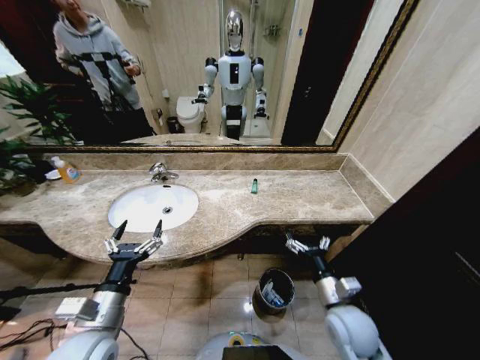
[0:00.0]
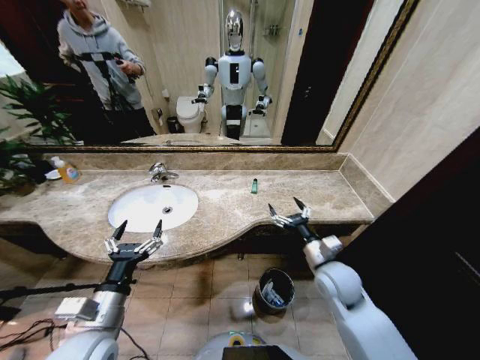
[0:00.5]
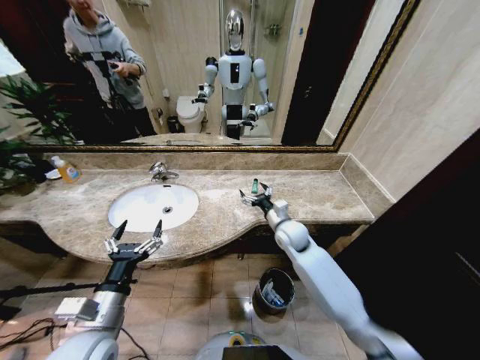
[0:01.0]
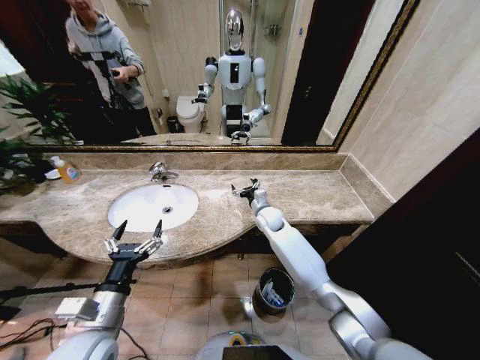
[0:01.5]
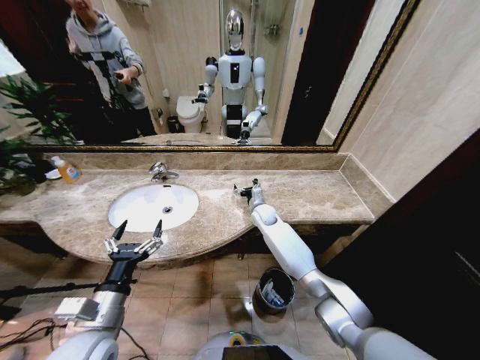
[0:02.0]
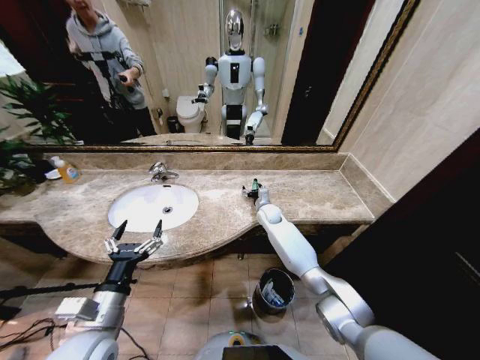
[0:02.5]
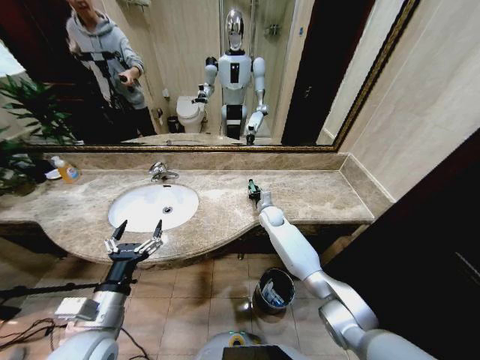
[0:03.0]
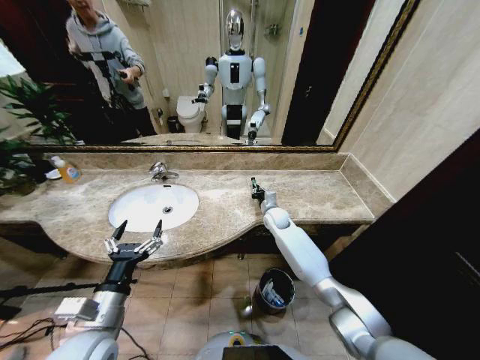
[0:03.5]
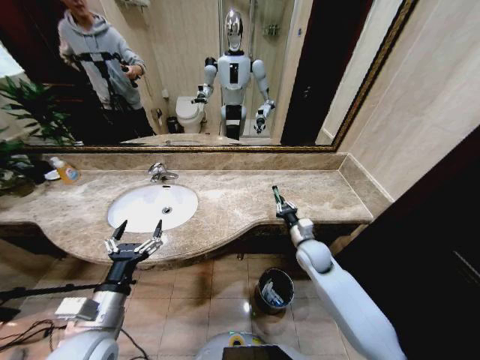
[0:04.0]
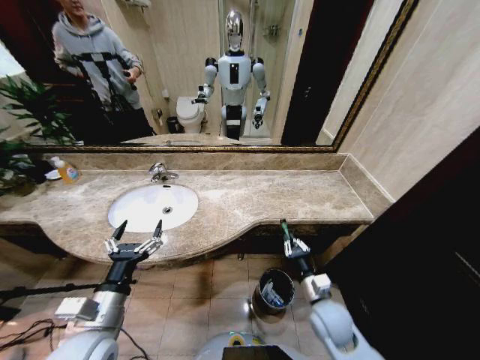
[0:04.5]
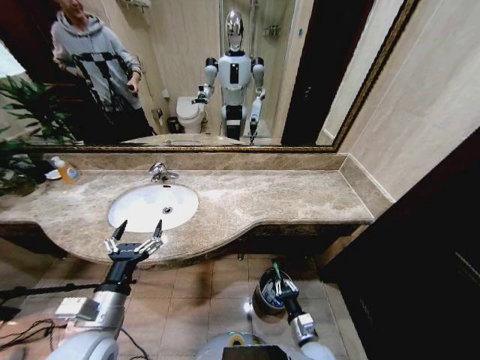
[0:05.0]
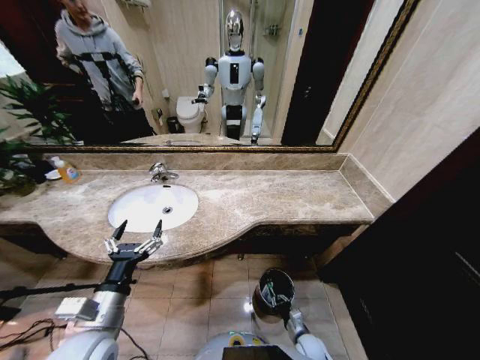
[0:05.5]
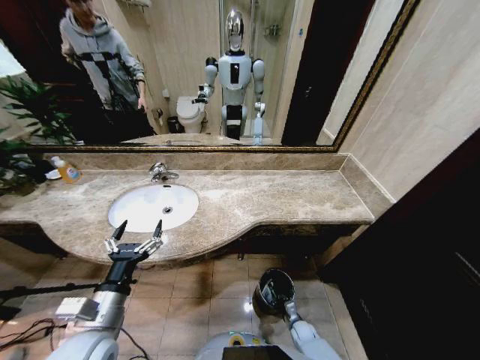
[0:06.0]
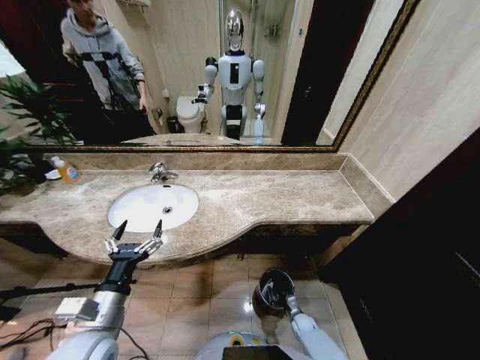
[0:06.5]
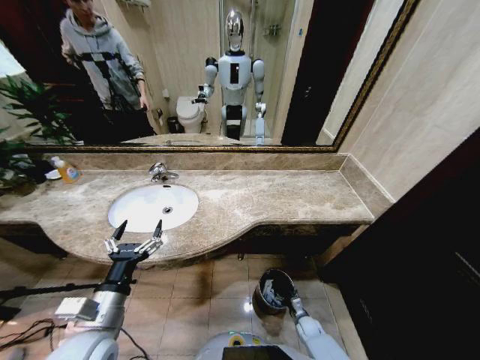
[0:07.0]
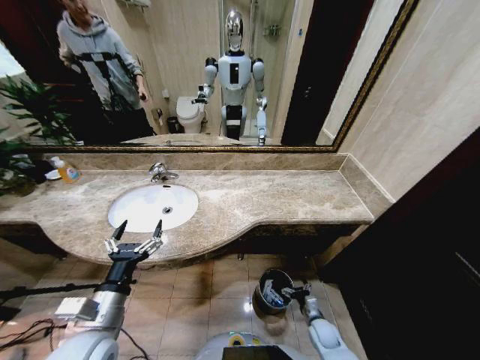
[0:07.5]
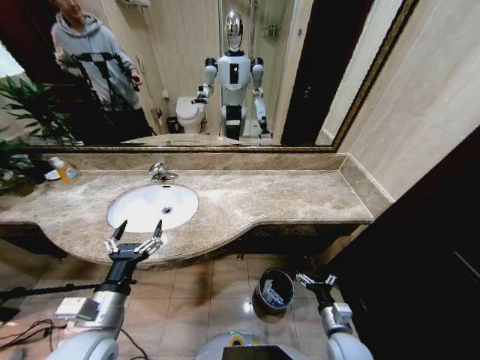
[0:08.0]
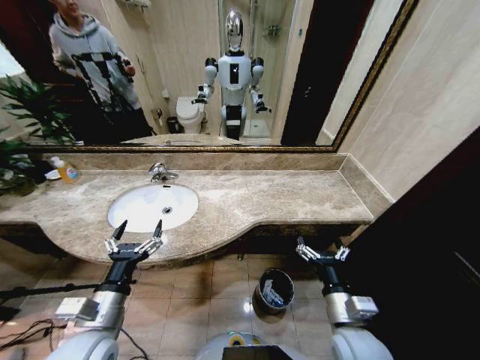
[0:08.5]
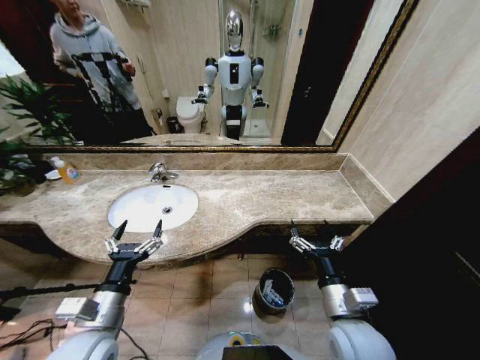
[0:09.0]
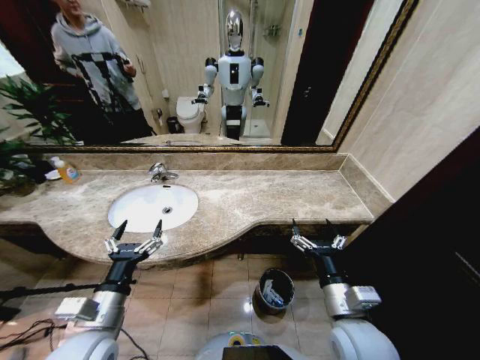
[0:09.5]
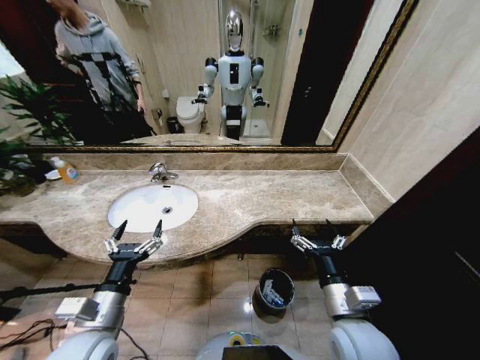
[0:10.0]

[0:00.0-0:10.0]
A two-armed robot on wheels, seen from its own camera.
Task of the whole recording: Pick up the trash from the sink and place it in the trash bin.
0:00.0 to 0:02.0: The right gripper goes some 35 cm forward.
0:02.0 to 0:04.0: The right gripper heads backward and to the right, covering about 20 cm, and closes.
0:04.0 to 0:06.0: The right gripper is displaced downward and backward by roughly 40 cm.
0:06.0 to 0:08.0: The right gripper travels upward by some 25 cm, and opens.
0:08.0 to 0:10.0: The right gripper heads upward, covering about 15 cm.

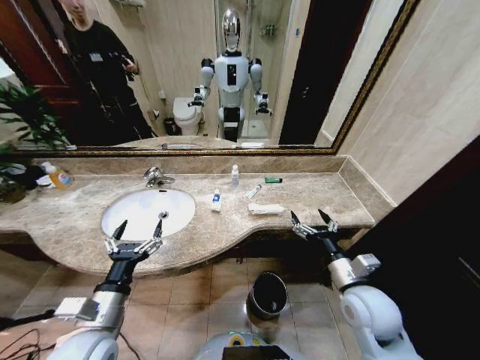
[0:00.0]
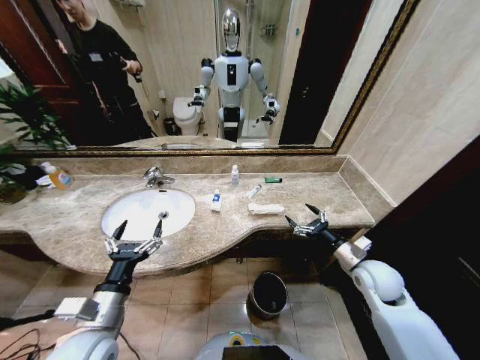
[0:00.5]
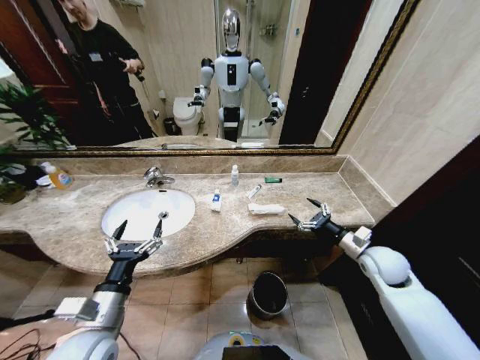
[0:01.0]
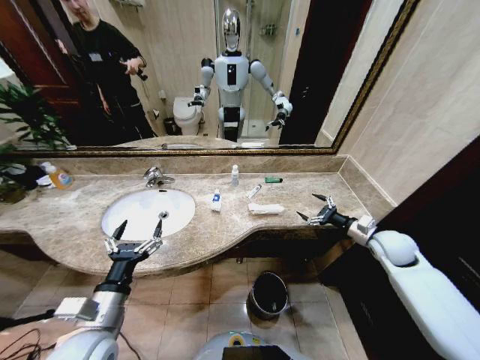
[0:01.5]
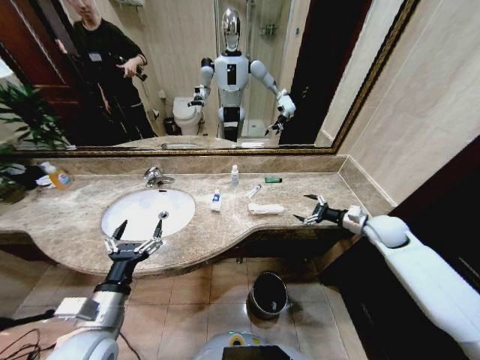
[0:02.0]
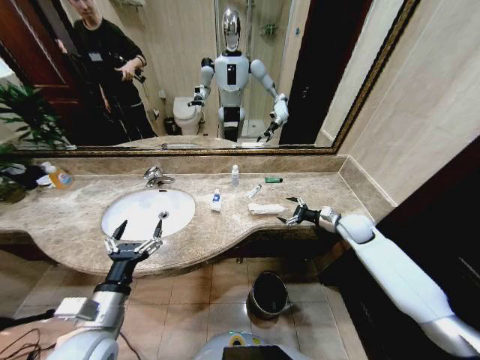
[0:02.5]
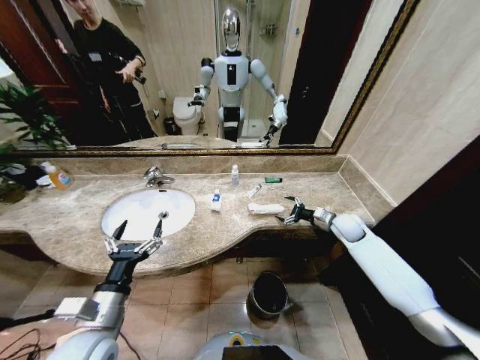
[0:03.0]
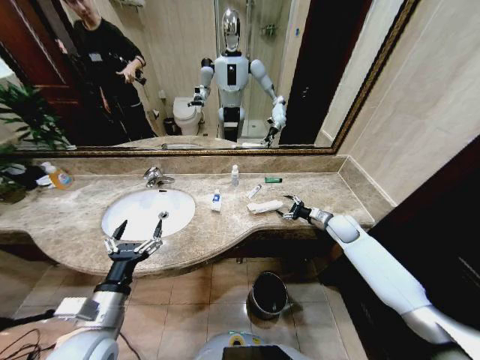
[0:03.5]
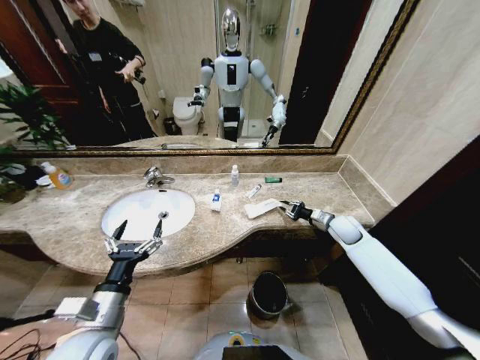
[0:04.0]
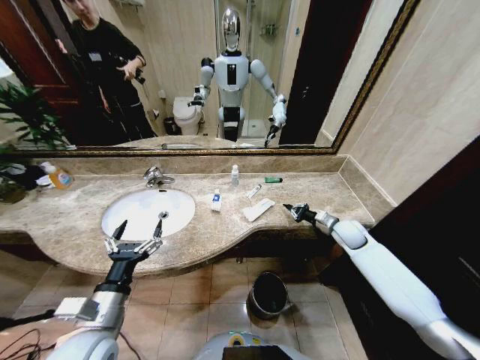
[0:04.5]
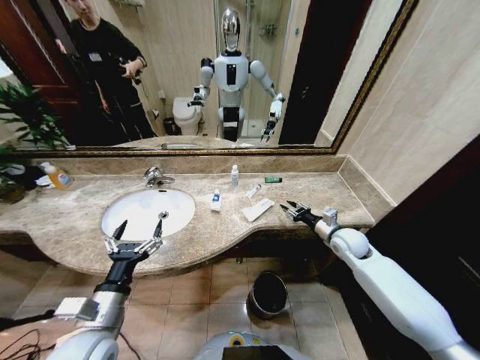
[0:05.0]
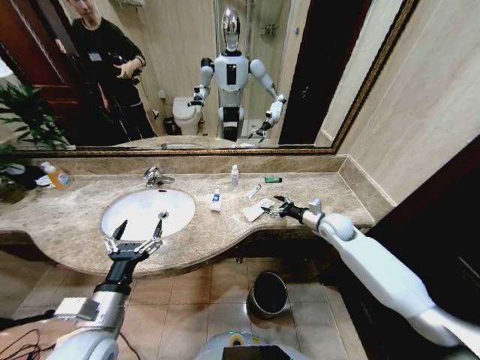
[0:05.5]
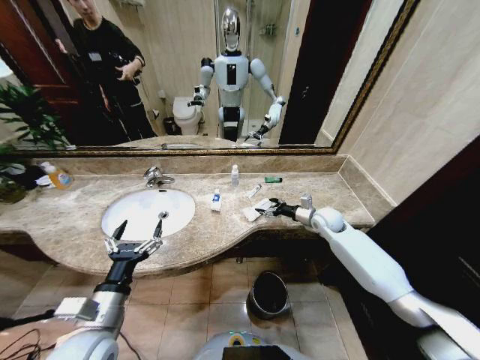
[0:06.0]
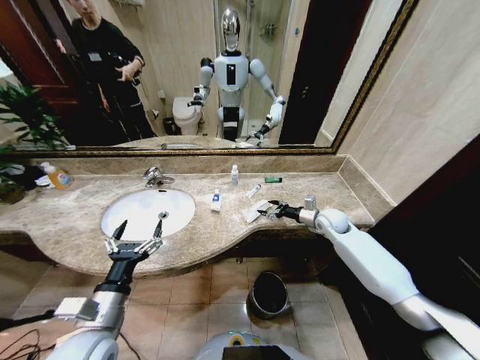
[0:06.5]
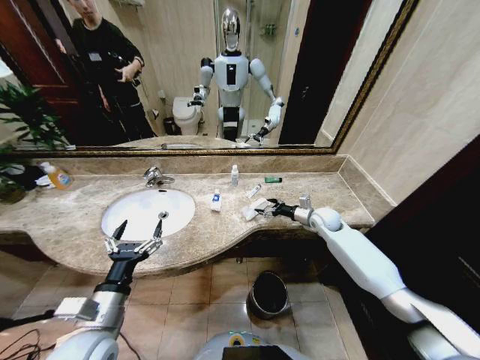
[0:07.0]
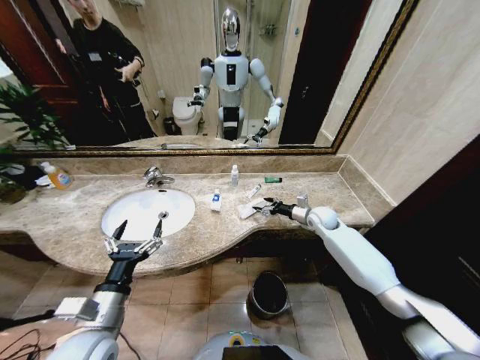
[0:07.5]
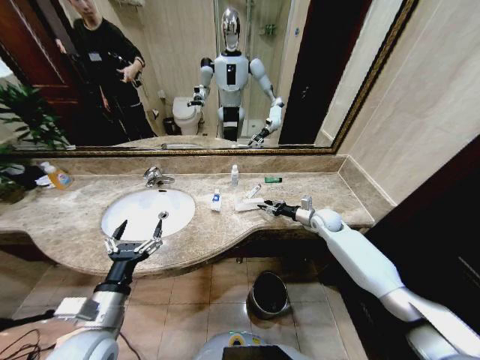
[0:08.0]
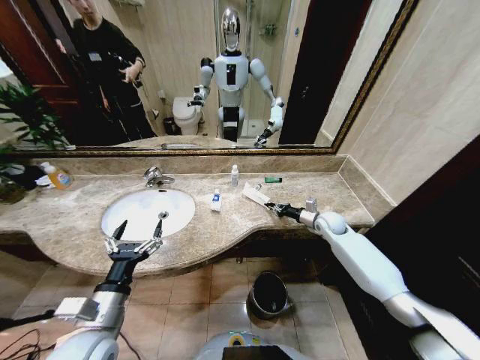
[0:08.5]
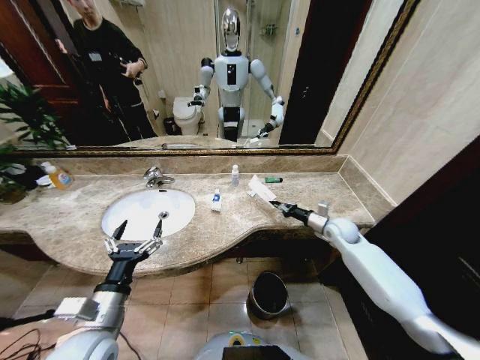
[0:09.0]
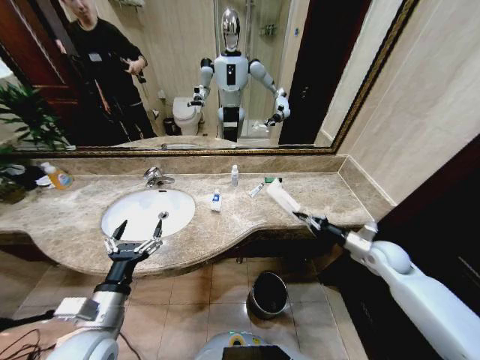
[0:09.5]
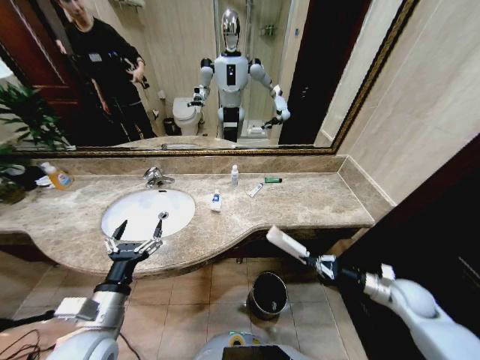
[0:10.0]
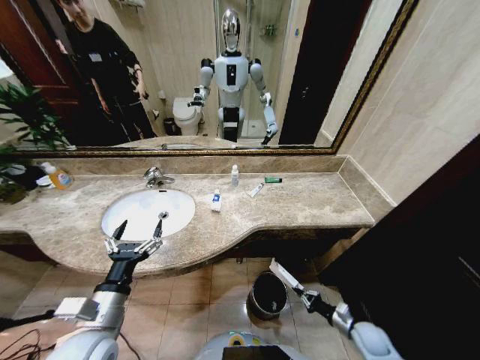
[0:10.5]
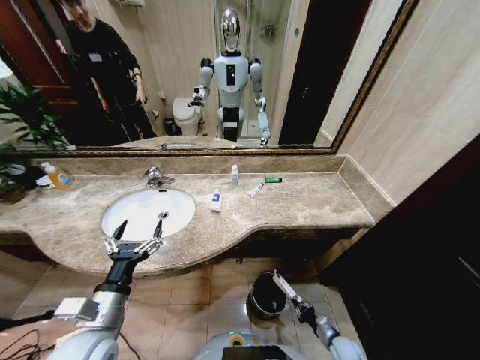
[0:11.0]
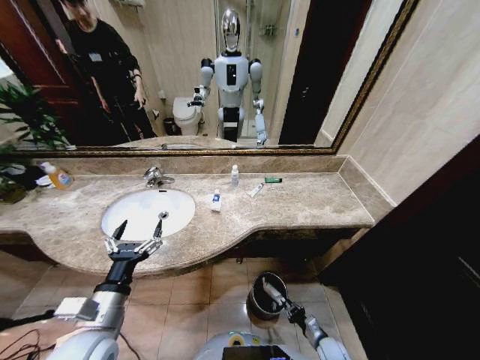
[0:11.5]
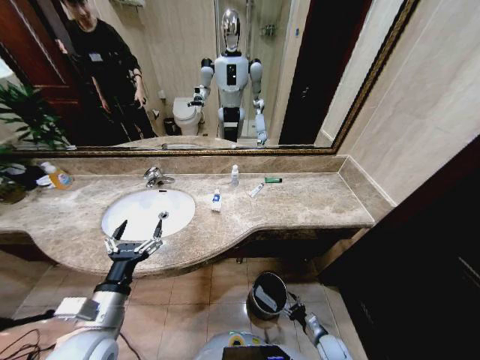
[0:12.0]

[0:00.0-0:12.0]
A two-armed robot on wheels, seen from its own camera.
Task of the whole recording: Pick up the trash from the sink and place it in the trash bin.
0:02.0 to 0:04.0: The right gripper shifts some 10 cm to the left and downward, and closes.
0:04.0 to 0:06.0: The right gripper moves to the left, about 5 cm, goes backward and returns, some 5 cm each way, and opens up.
0:06.0 to 0:08.0: The right gripper closes up.
0:08.0 to 0:10.0: The right gripper is displaced backward and to the right by some 30 cm, and closes.
0:10.0 to 0:12.0: The right gripper travels downward and to the left by approximately 30 cm, and opens.

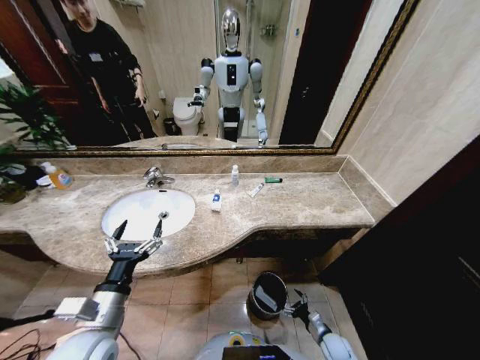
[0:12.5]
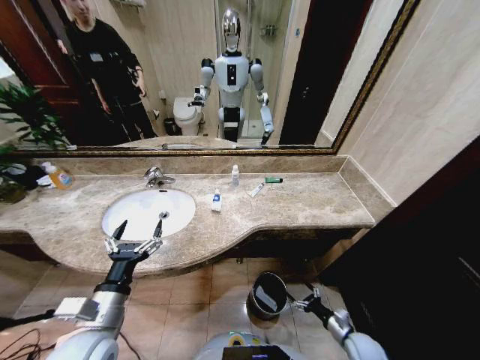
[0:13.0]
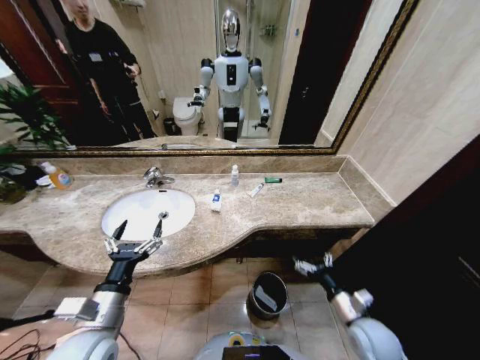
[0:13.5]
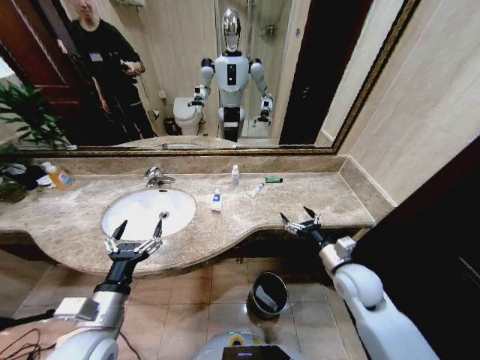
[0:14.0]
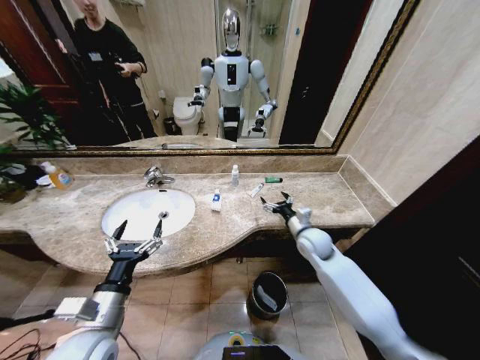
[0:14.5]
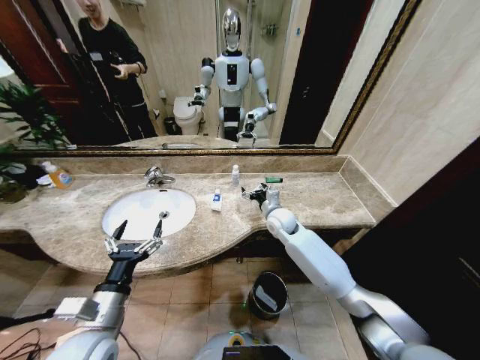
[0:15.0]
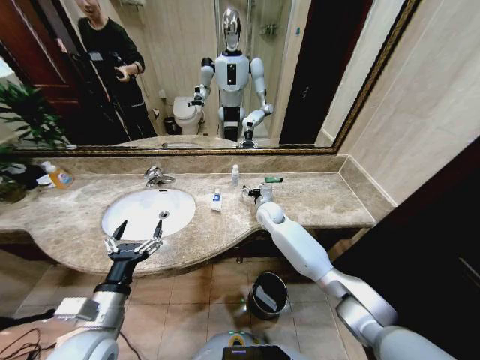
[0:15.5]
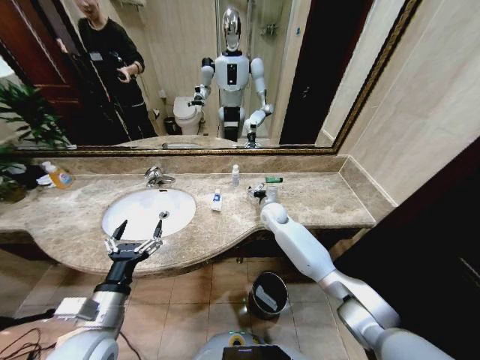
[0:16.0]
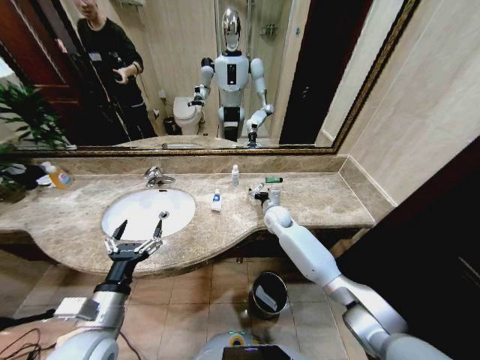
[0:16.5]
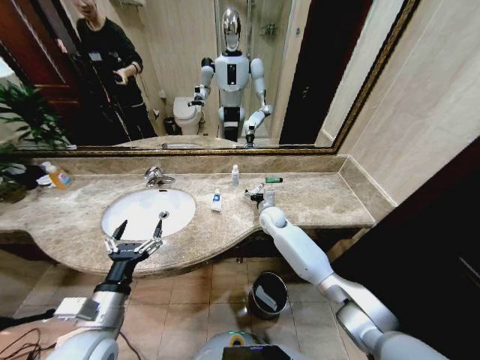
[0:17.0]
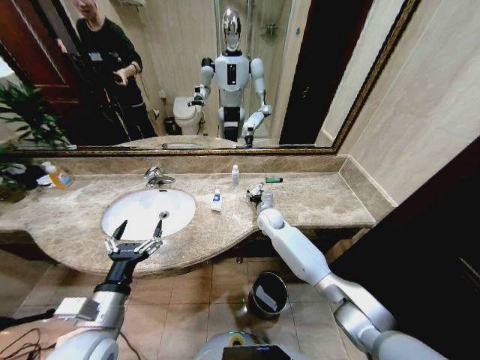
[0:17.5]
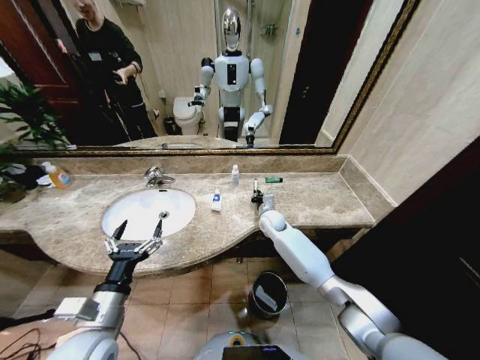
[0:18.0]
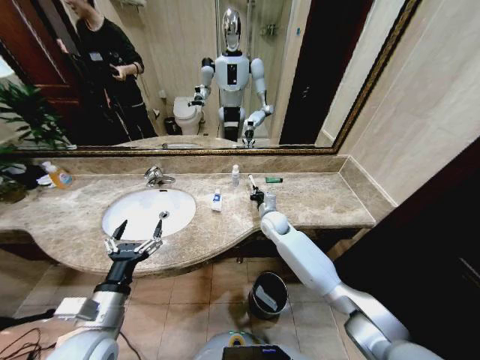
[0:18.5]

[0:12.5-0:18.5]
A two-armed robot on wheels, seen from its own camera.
Task of the whole recording: Pick up the trash from the sink and place it in the trash bin.
0:12.5 to 0:14.5: The right gripper travels upward and forward by roughly 40 cm.
0:14.5 to 0:16.5: The right gripper travels forward and to the left by approximately 15 cm.
0:16.5 to 0:18.5: The right gripper closes.
